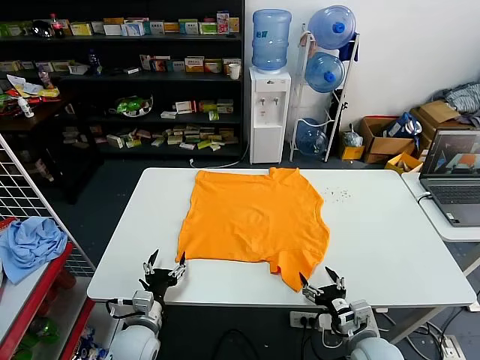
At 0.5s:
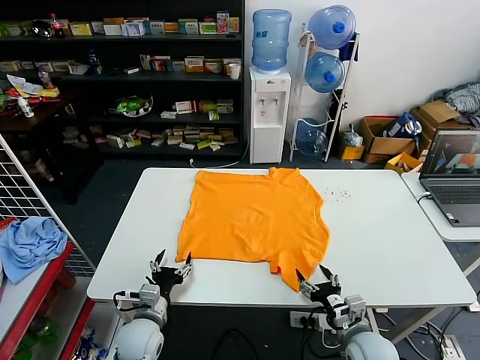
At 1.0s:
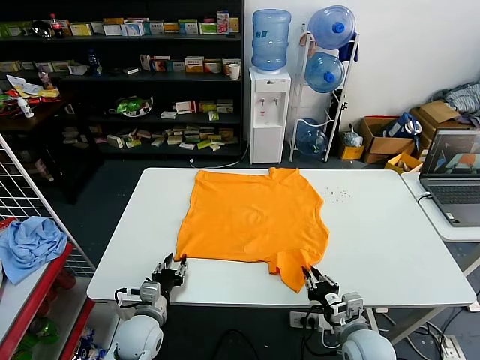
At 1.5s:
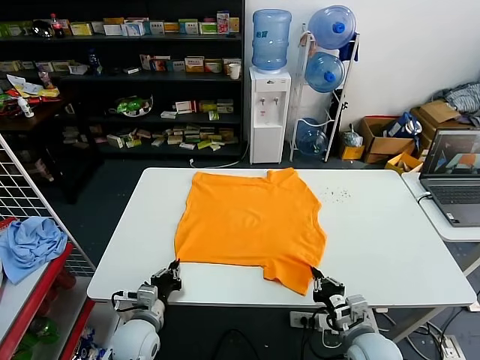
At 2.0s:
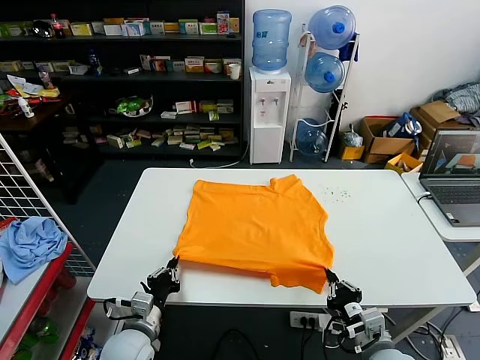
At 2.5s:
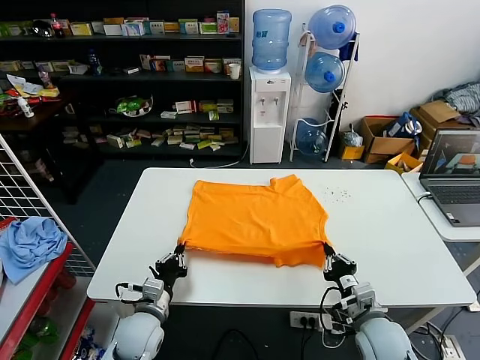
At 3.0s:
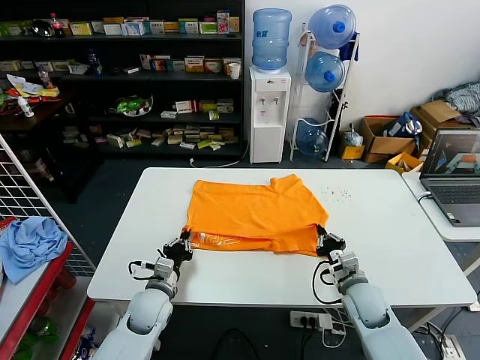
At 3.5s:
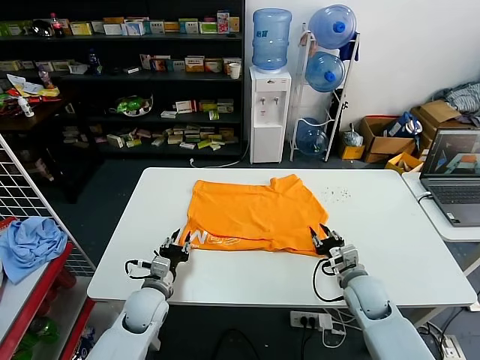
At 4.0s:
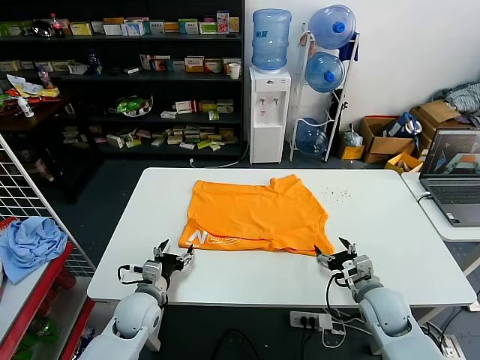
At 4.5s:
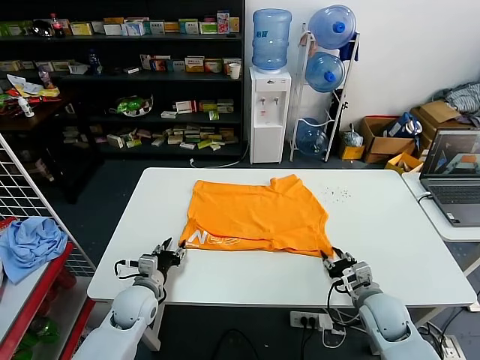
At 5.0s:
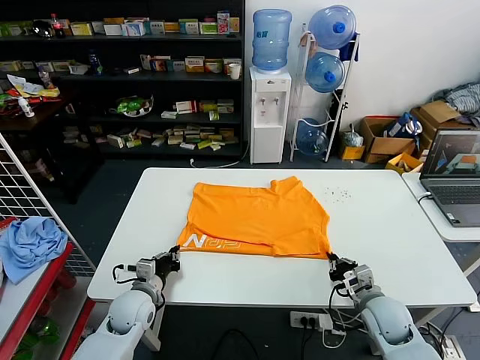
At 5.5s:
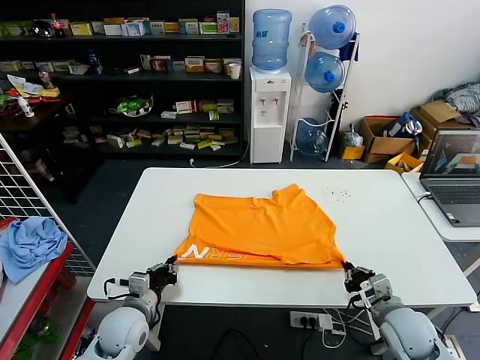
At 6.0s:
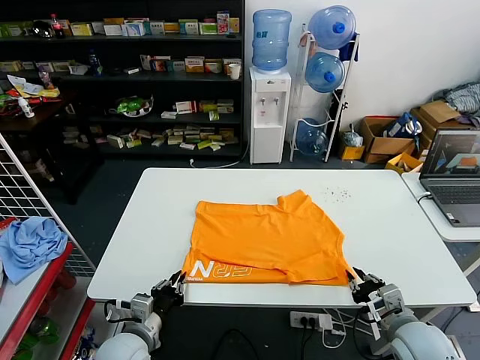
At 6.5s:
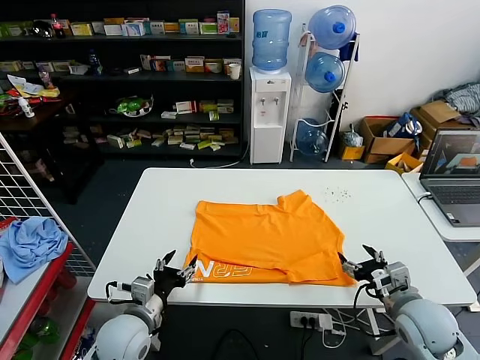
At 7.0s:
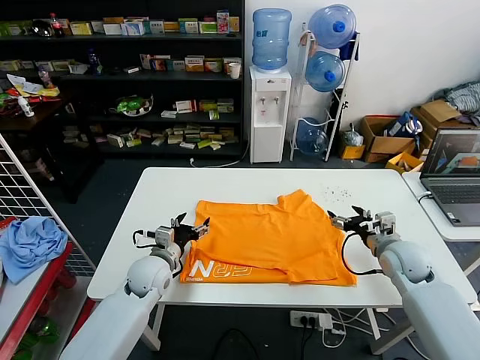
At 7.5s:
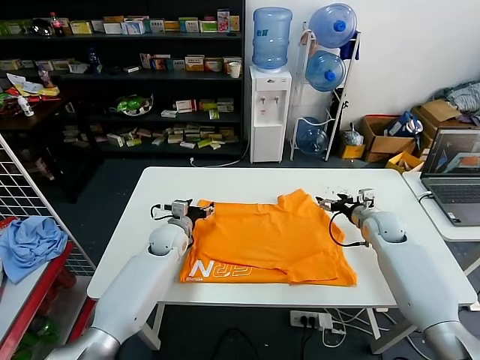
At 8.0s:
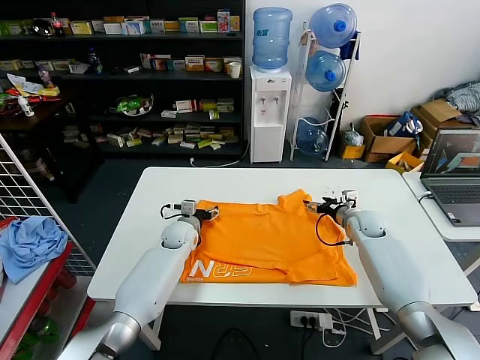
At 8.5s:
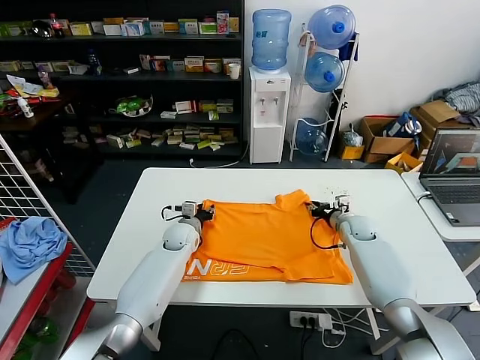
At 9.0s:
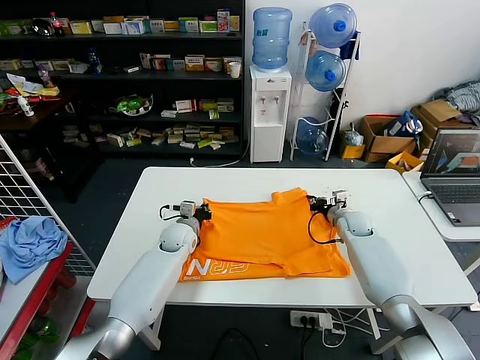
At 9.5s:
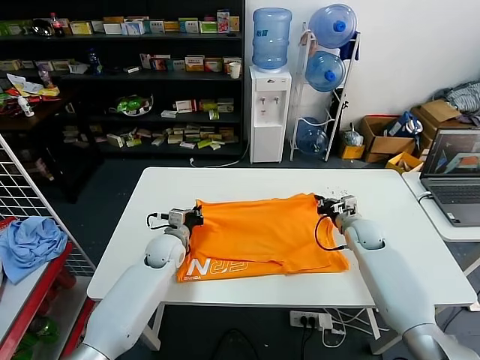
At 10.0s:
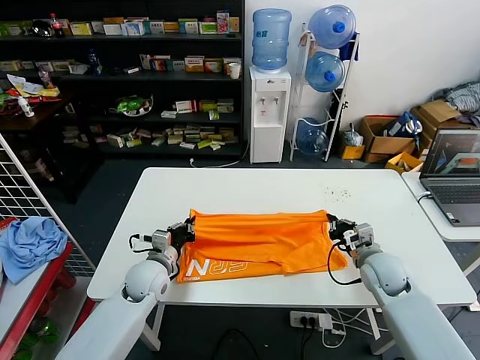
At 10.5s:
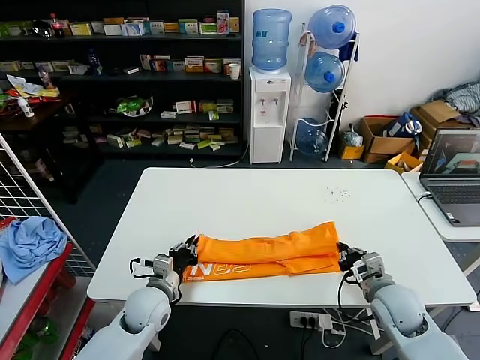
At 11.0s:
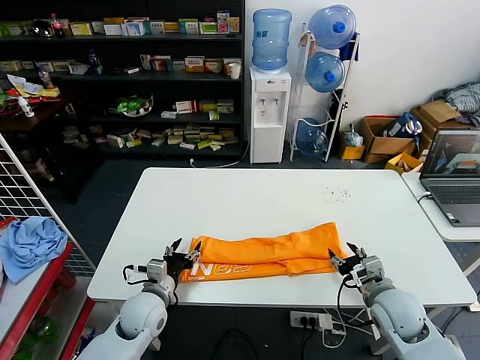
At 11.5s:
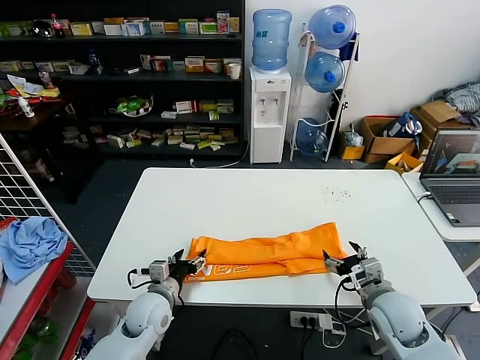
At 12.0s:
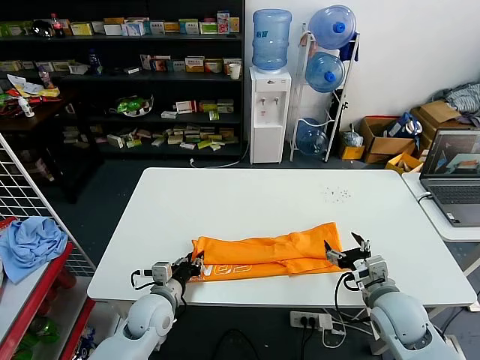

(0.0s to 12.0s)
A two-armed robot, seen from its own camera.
Task of the whole recording: fold and organize the clothes.
Step, 0.0s - 1.0s: use both grippers simultaneously to clamp the lower edge of the clothing fabric.
Step, 1.5s - 3.5s: use both grippers to drag the lower edge of the fabric forward and fold it over the upper edge.
Step, 4.0s - 6.0s: Drag the clothes downward with both gripper.
Step, 6.5s - 8.5s: use both grippers simultaneously to clamp the upper edge of the clothing fabric.
Step, 9.0s - 10.5s: use both grippers to drag the upper edge of the fabric backward and fold it over the lower edge.
2.0s - 4.0s: The two grippers go some 10 cm forward. The left gripper opens, while the right gripper opens up.
4.0s - 6.0s: The right gripper moves backward and upward, roughly 10 cm, and closes its fingers. The left gripper goes some 10 cm backward, and closes its fingers.
6.0s - 8.0s: Both grippers move forward, roughly 30 cm. The left gripper opens its fingers; the right gripper opens its fingers.
8.0s - 10.0s: The grippers both shift backward by roughly 15 cm. The left gripper closes its fingers, while the right gripper closes its fingers.
10.0s - 12.0s: Both grippers travel together backward, about 10 cm. The right gripper opens up, while the left gripper opens, then closes once more.

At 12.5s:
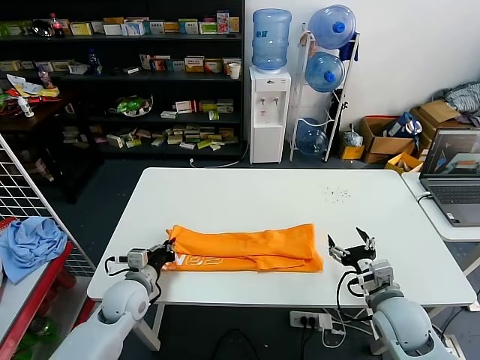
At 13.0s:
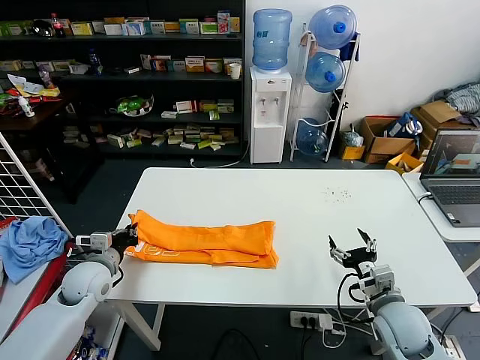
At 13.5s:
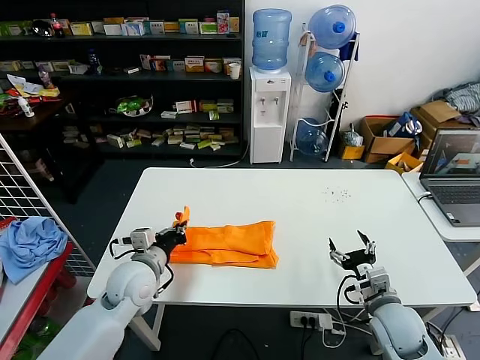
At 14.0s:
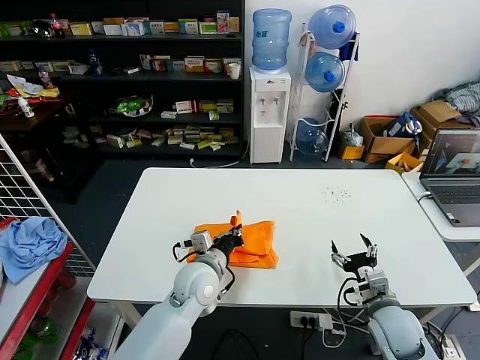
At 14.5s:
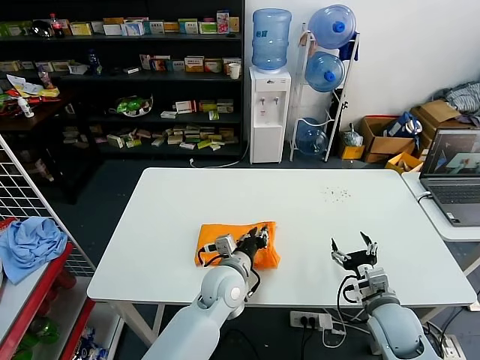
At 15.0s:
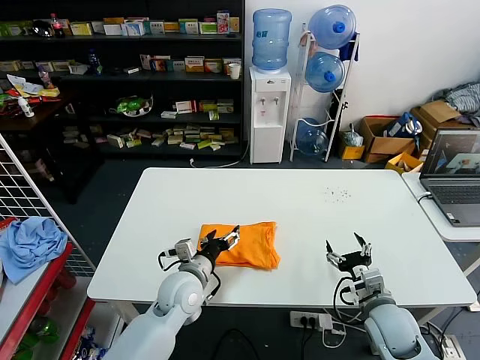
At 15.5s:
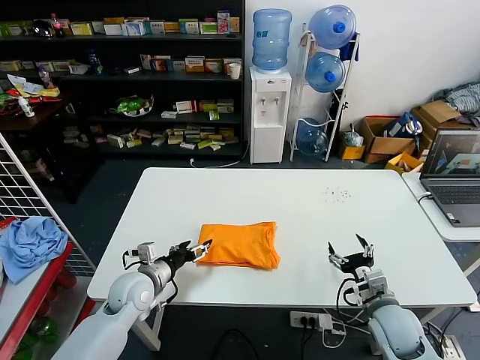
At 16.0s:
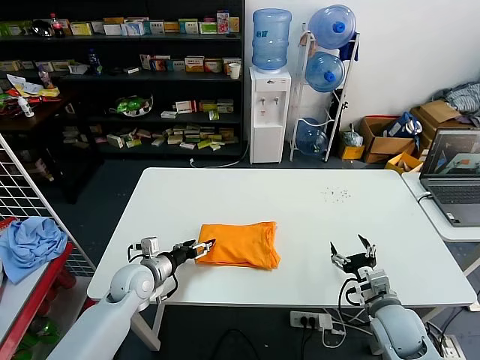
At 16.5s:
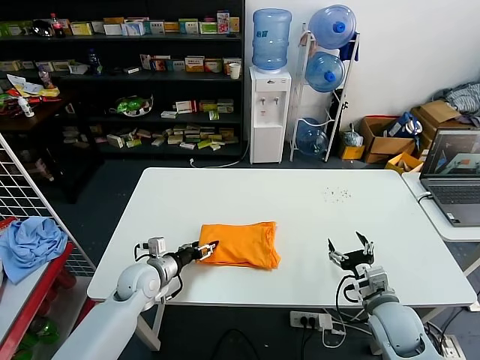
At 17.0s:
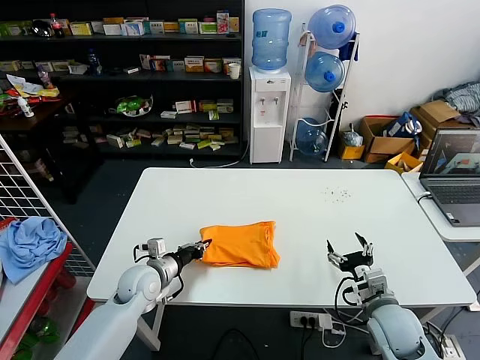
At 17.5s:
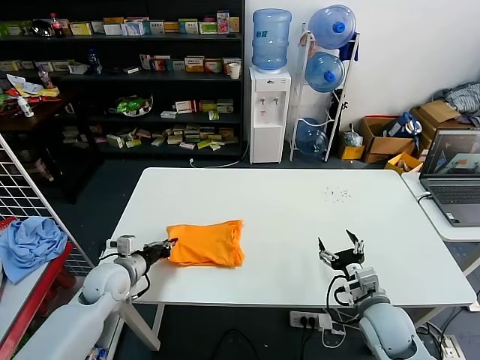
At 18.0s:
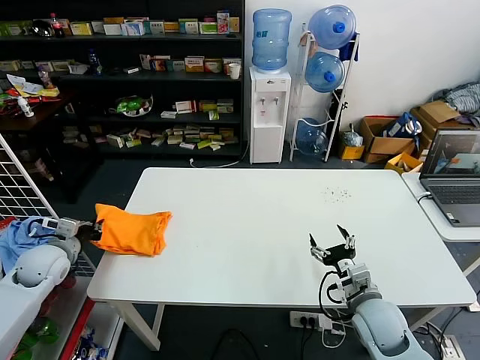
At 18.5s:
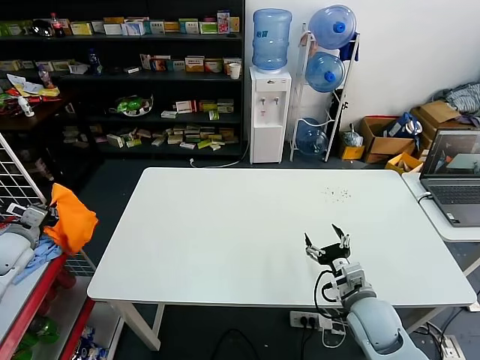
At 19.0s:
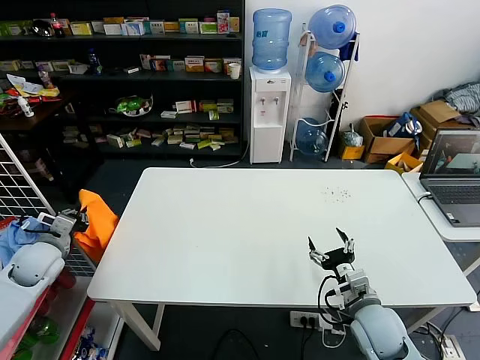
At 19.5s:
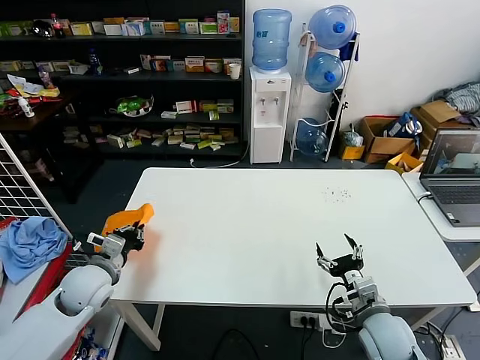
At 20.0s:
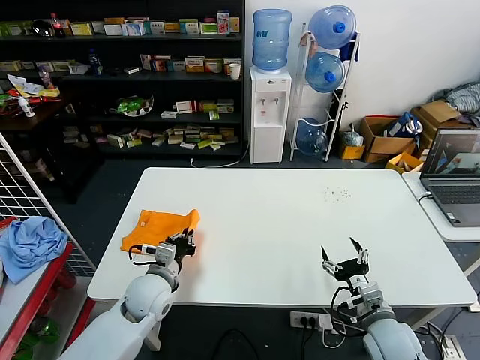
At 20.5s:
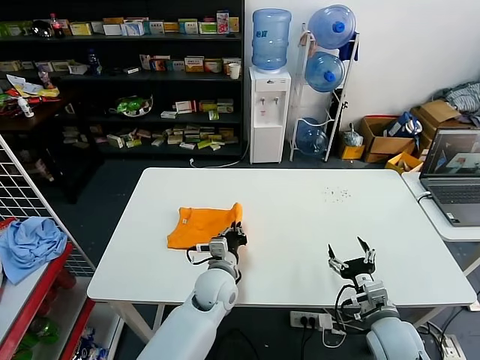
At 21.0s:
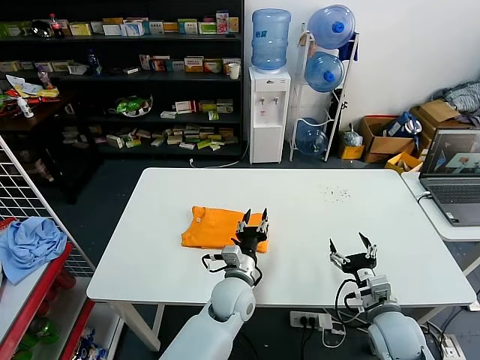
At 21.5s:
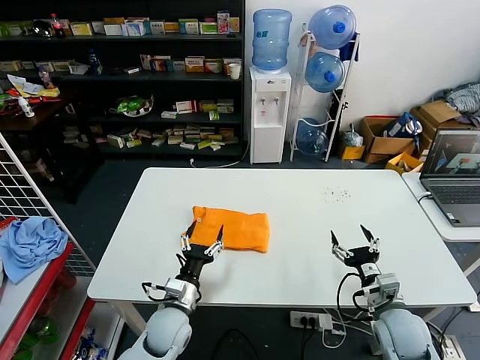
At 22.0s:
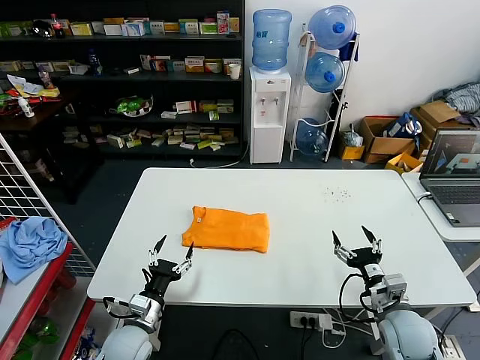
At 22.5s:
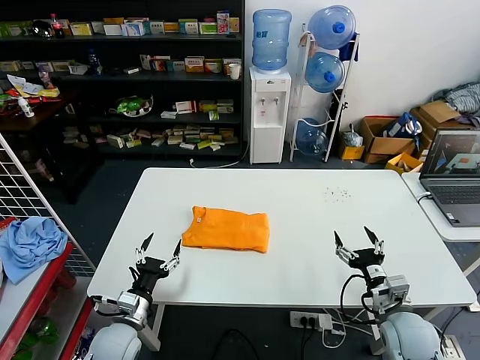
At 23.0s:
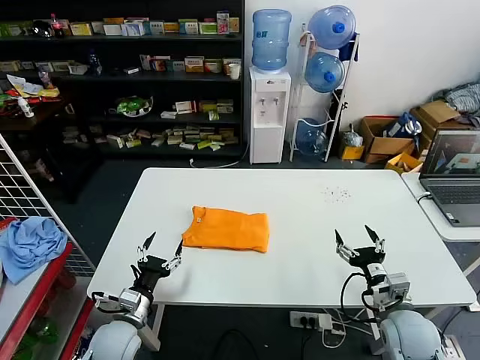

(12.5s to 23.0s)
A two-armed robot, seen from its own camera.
Task of the whole recording: fold and organize the clothes.
Step, 12.5s - 14.5s: use the left gripper to drag the left edge of the fabric to the left and folds it over the right edge.
Step, 15.0s - 21.0s: Flip the folded clothes over with left gripper.
12.5s - 14.5s: The left gripper moves to the right, some 20 cm, and opens up.
14.5s - 16.5s: The left gripper heads to the left, covering some 20 cm.
16.5s - 19.0s: The left gripper goes approximately 25 cm to the left and upward, and closes up.
19.0s - 21.0s: The left gripper is displaced to the right by some 50 cm, and opens.
21.0s - 23.0s: The left gripper travels to the left by some 25 cm, and opens up.

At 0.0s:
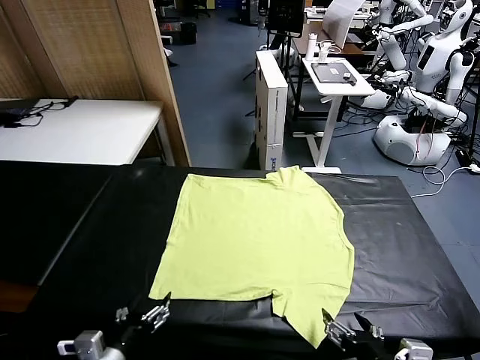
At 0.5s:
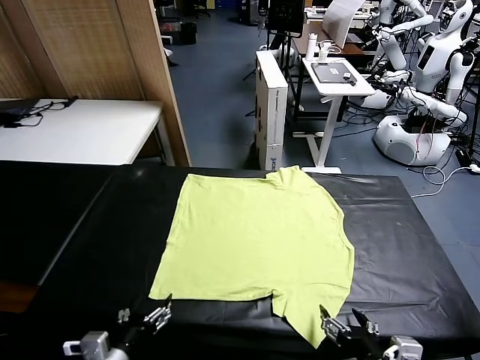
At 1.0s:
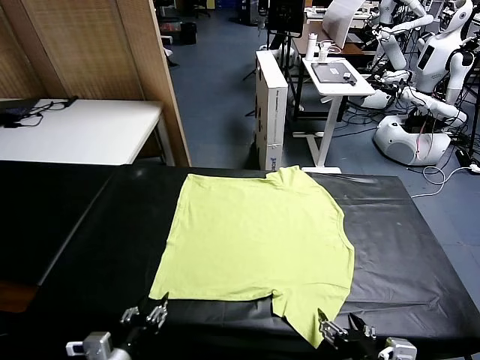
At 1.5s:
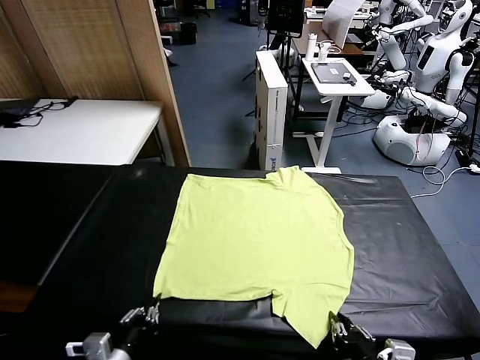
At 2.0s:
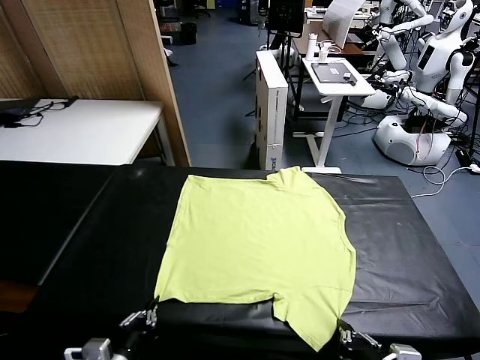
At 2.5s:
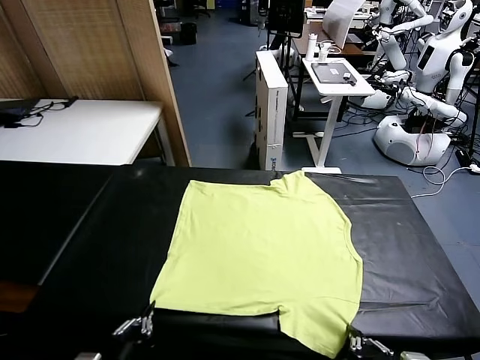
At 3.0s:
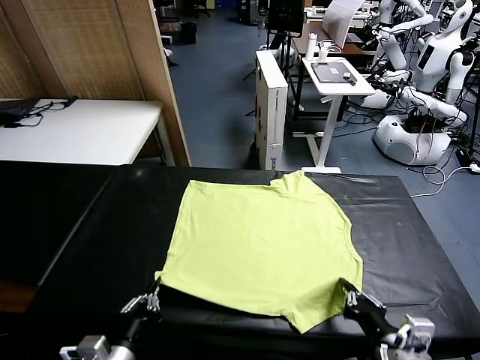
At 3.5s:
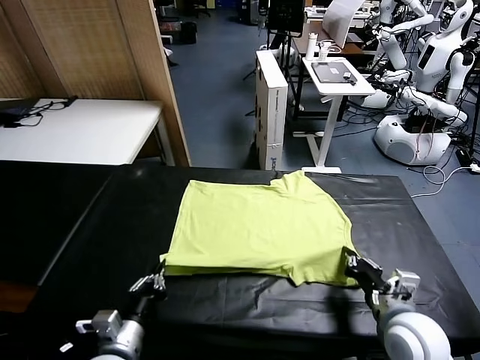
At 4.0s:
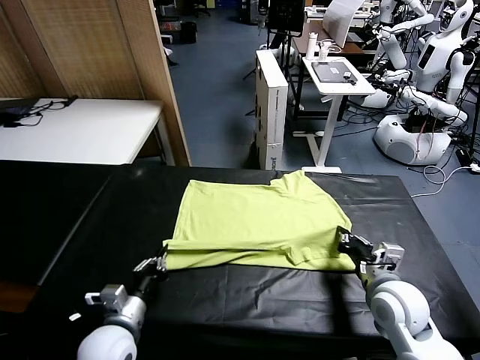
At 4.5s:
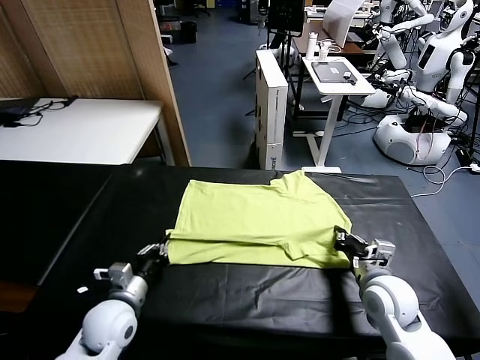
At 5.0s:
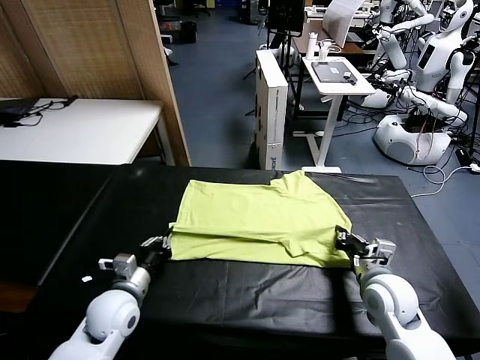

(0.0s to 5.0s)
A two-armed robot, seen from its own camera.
Task of the whole recording: fold and organize the clothes.
Step, 0.0s - 2.0s: use both grippers simultaneously to clamp the lower edge of the clothing fabric.
2.5s - 5.0s: Both grippers move forward, roughly 15 cm. The right gripper opens up. The left gripper opens.
